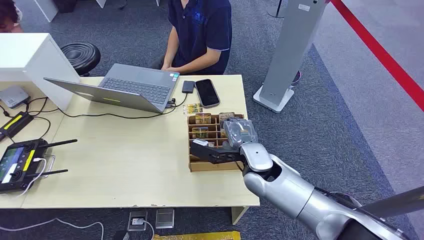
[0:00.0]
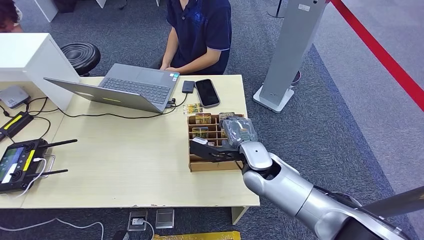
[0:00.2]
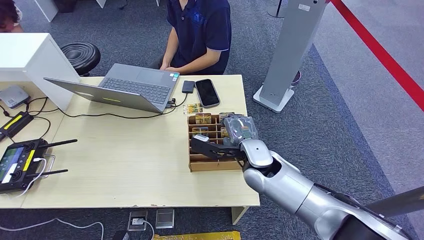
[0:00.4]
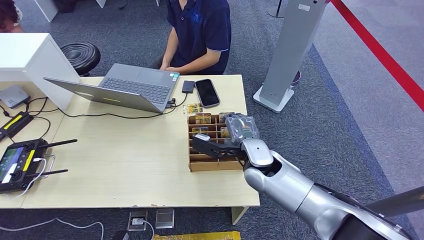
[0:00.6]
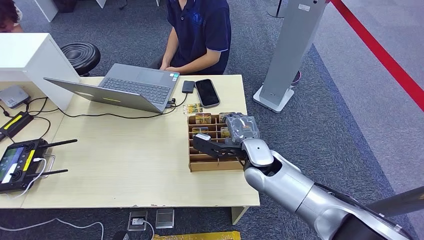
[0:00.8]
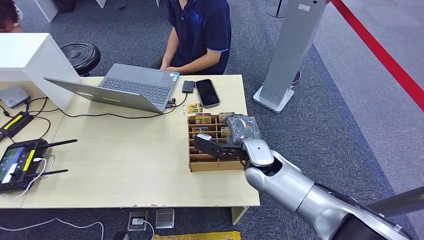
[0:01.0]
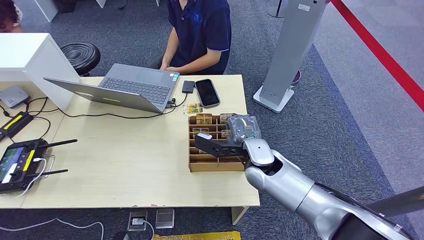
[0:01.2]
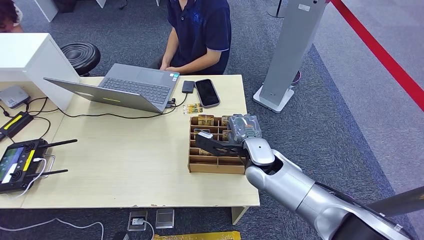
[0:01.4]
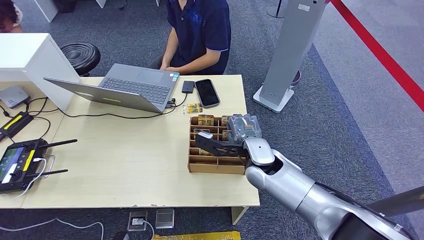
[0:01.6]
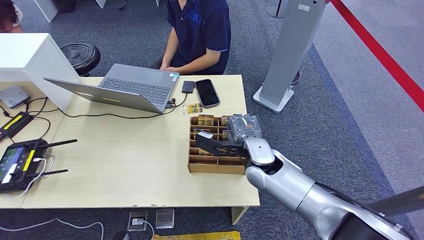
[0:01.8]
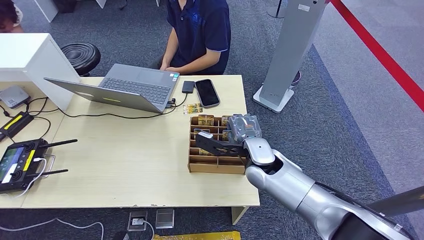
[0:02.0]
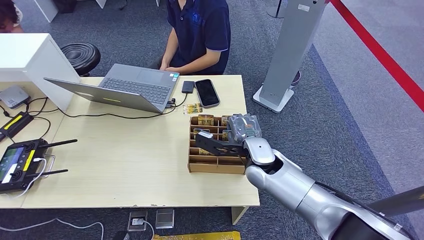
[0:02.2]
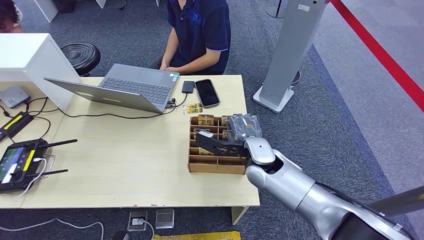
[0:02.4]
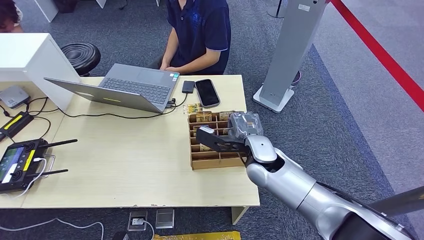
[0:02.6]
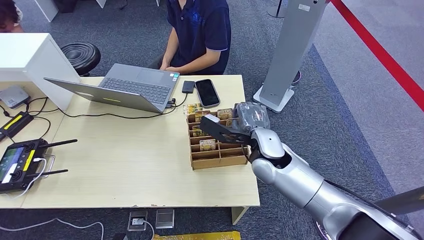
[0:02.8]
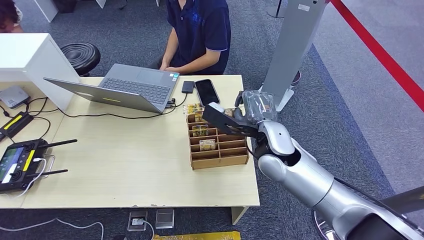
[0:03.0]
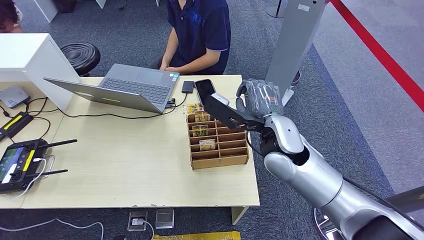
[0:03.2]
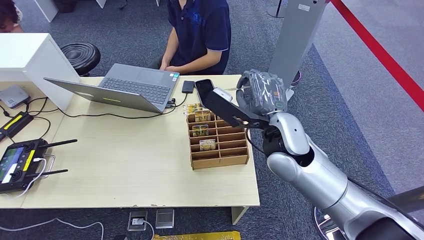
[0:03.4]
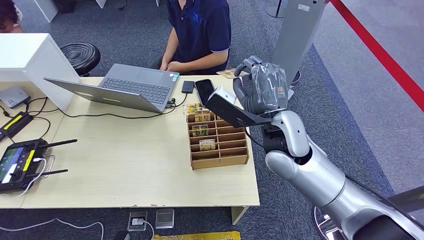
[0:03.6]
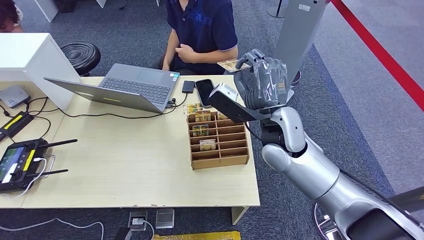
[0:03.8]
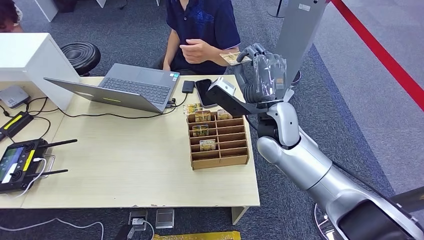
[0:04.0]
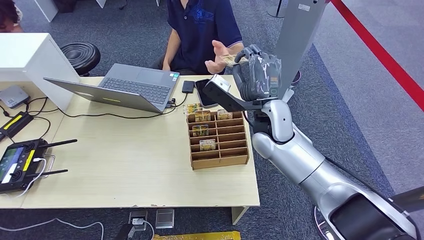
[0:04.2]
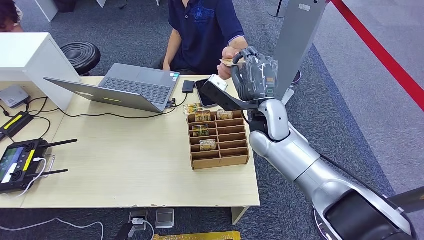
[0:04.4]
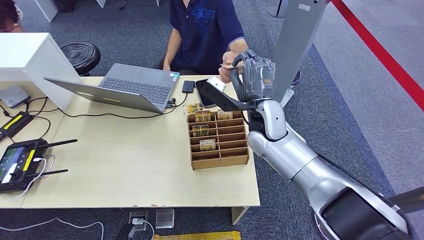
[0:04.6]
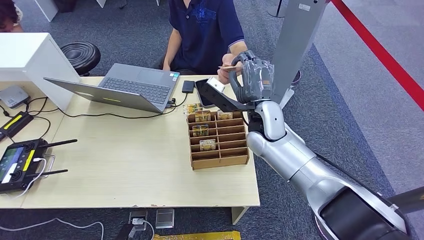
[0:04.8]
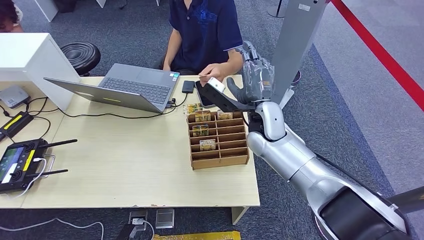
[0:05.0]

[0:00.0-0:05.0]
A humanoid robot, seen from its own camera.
Task of the whole recording: Pick up the card and hand it to the target person.
Step, 0:00.0 to 0:02.8: Pick up the key card from the card box.
Step, 0:03.6 to 0:05.0: Hand the key card to the target.
0:01.6 to 0:03.4: The right hand is displaced upward by about 10 cm.
0:03.4 to 0:05.0: The right hand heads forward, covering roughly 5 cm.
